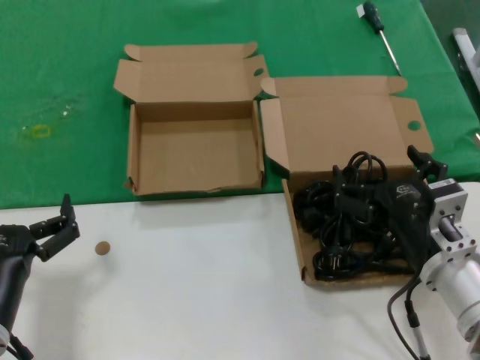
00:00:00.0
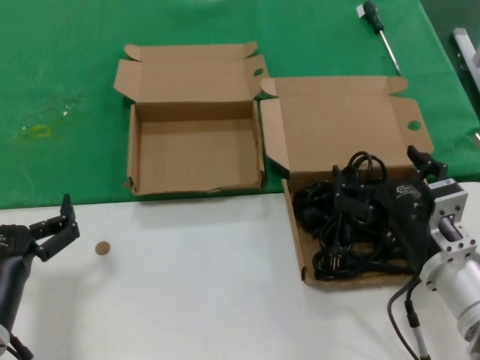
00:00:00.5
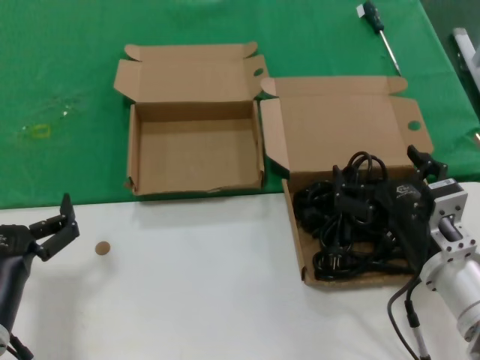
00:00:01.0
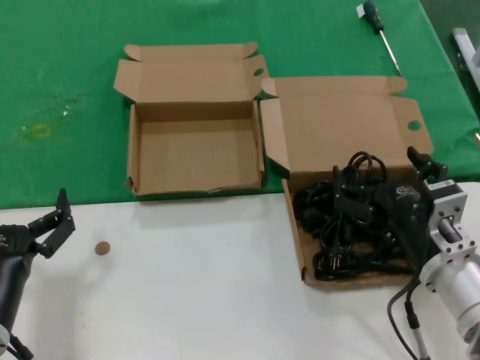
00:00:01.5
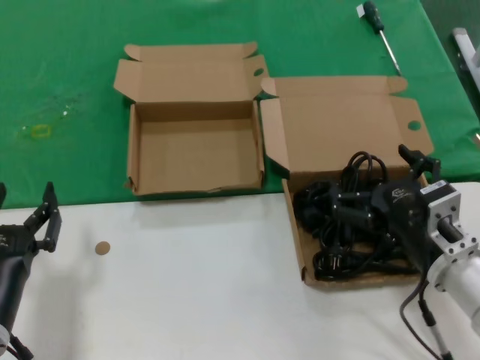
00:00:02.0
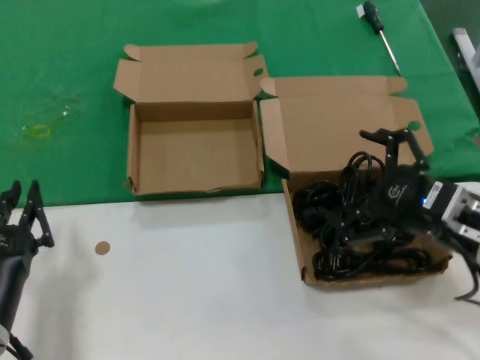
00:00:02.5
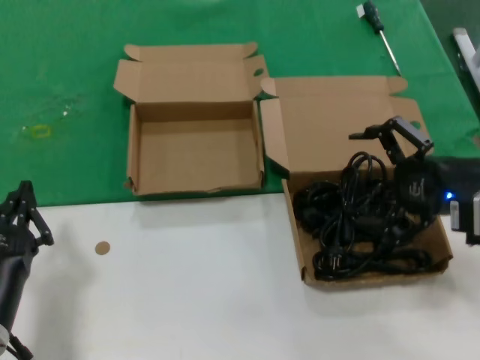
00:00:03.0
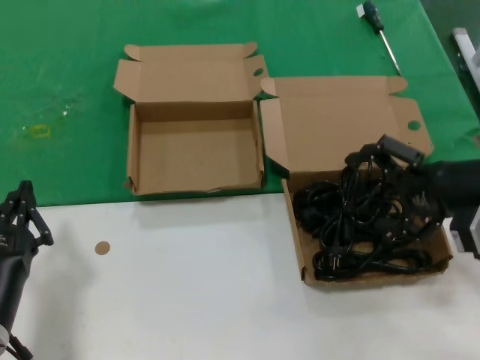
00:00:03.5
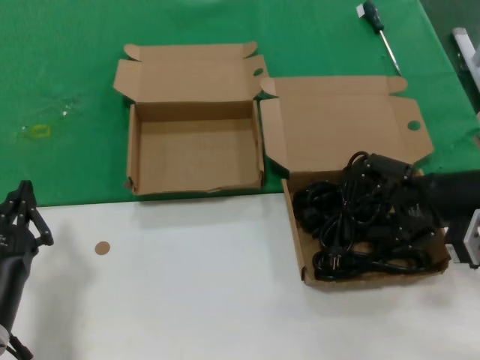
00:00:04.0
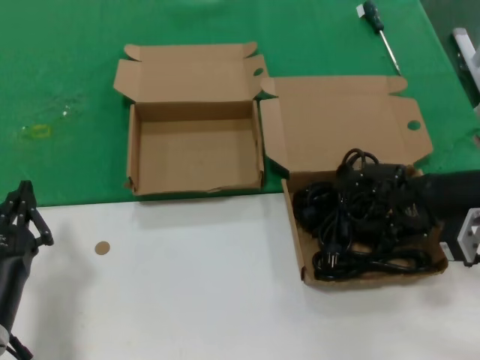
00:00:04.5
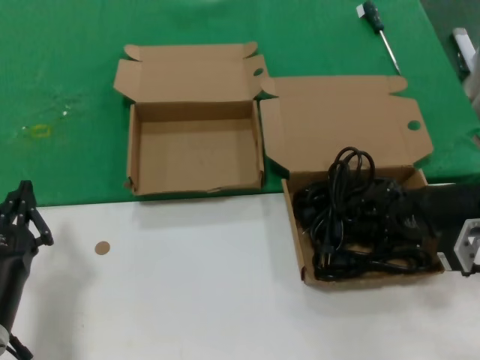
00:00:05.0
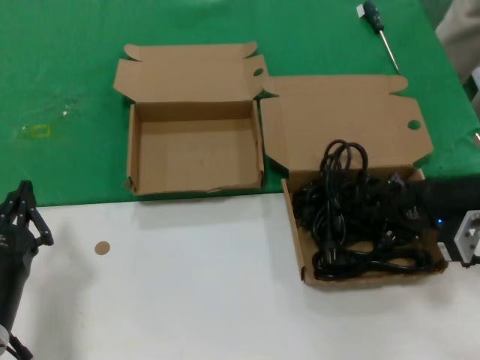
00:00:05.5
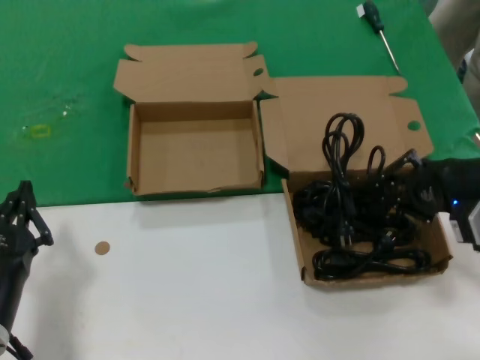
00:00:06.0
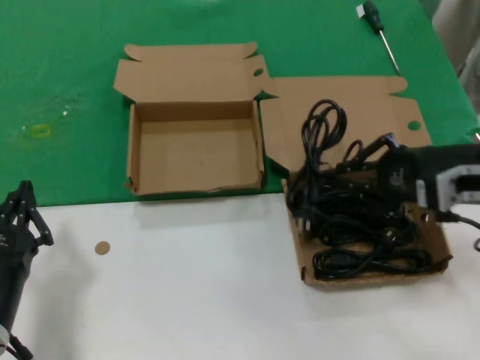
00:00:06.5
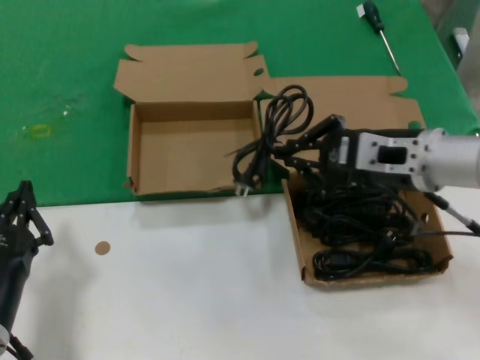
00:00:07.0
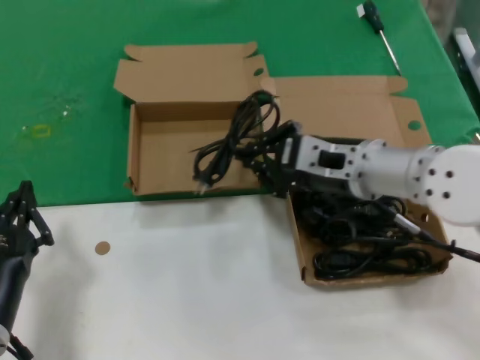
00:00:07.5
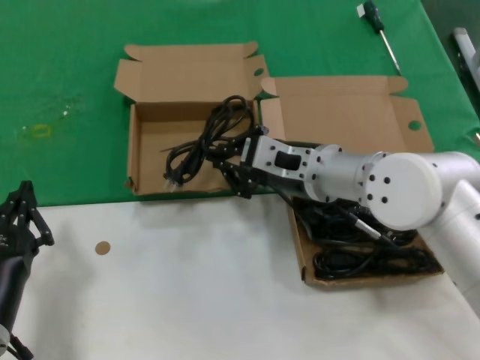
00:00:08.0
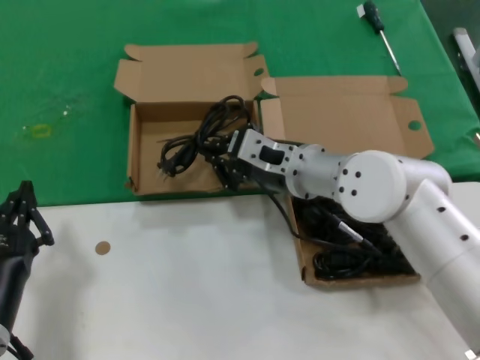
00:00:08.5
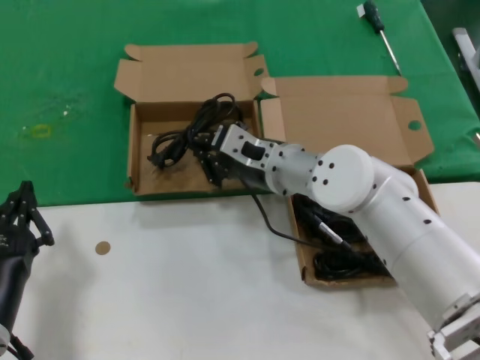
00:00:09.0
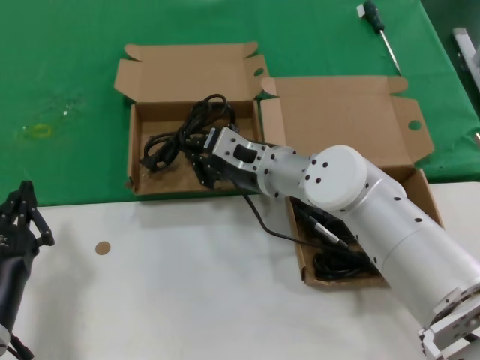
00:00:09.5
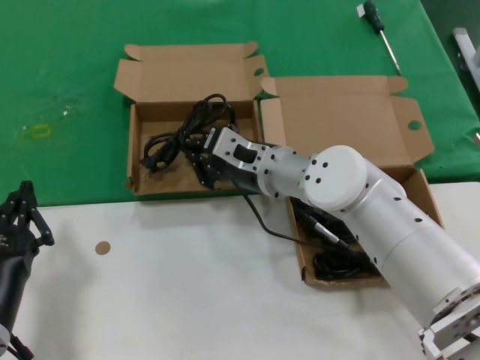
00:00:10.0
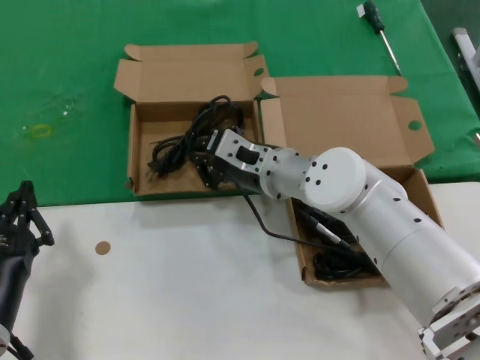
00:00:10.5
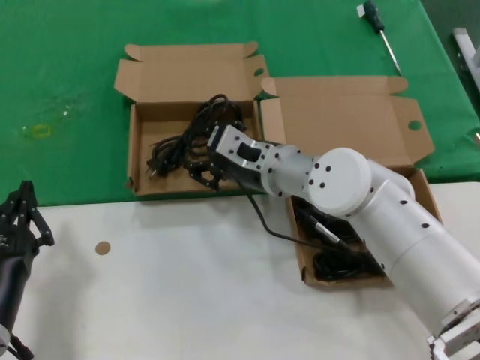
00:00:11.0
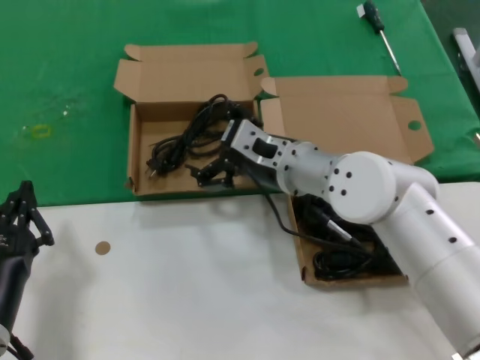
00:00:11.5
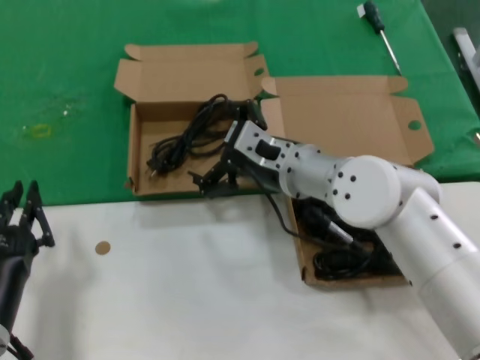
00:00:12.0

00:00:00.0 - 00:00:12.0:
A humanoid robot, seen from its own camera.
Task of the whole recording: take the parts from the box containing them and put them into an empty box.
Step, 00:00:00.0 - 00:00:04.5: Grasp the data cable.
Step, 00:00:05.0 - 00:00:11.0: Place the data cable in the another box.
00:00:00.0 - 00:00:02.0: The hands stay close to where they were, moving slightly.
00:00:02.0 - 00:00:04.0: The right hand shifts roughly 15 cm to the right, upward and forward.
00:00:04.0 - 00:00:06.0: The hands stay close to where they were, moving slightly.
00:00:06.0 - 00:00:08.0: The right hand travels to the left by approximately 25 cm.
00:00:08.0 - 00:00:10.0: The right hand shifts some 10 cm forward and to the left.
00:00:10.0 - 00:00:12.0: The hands move only a little.

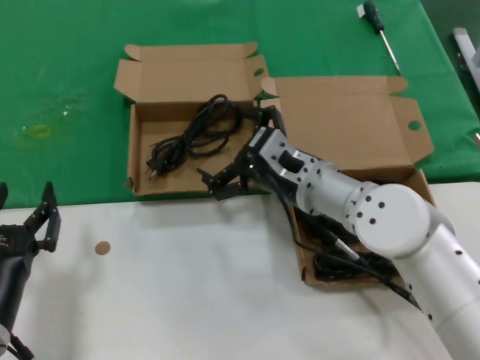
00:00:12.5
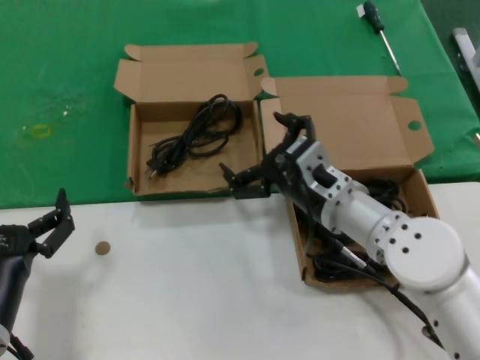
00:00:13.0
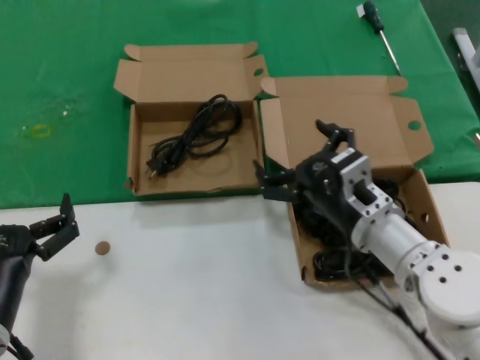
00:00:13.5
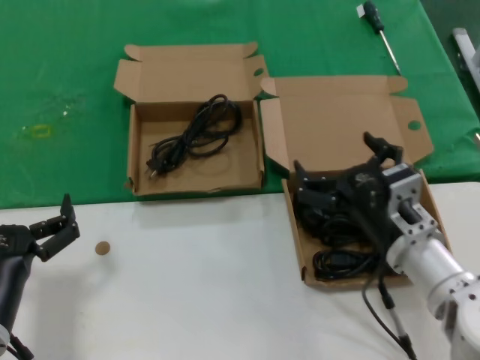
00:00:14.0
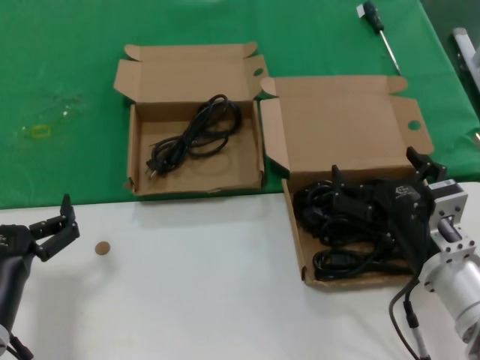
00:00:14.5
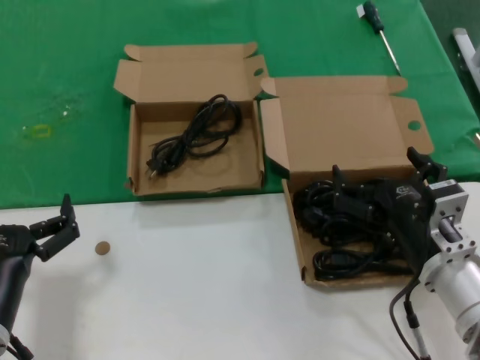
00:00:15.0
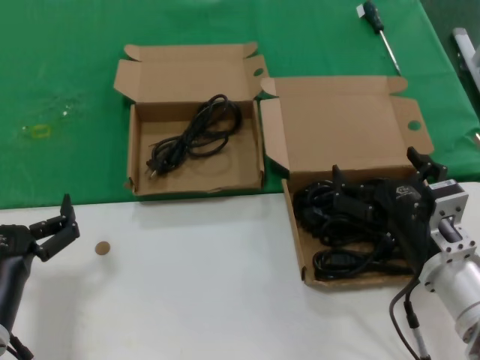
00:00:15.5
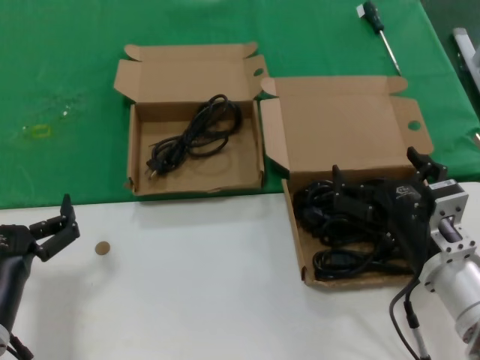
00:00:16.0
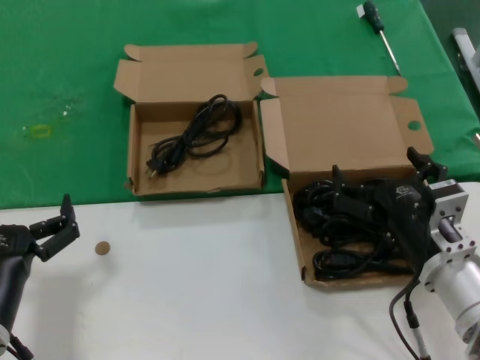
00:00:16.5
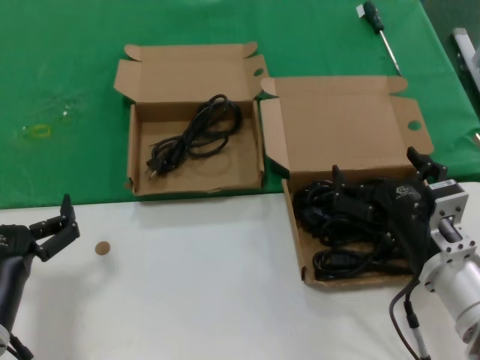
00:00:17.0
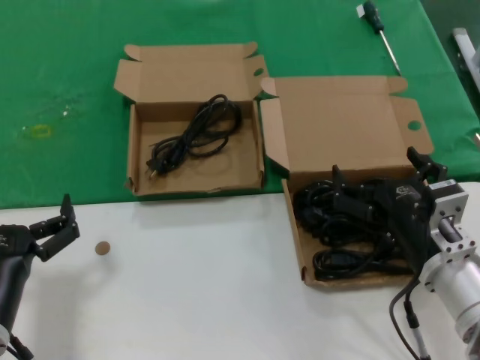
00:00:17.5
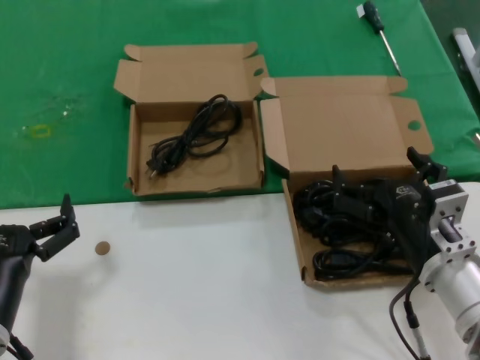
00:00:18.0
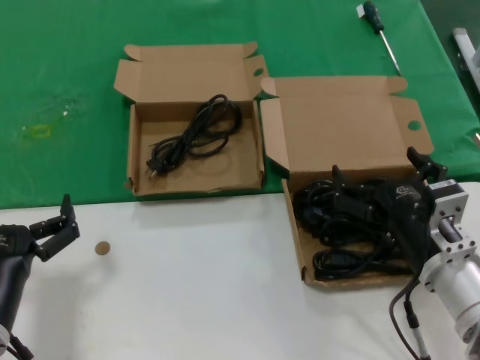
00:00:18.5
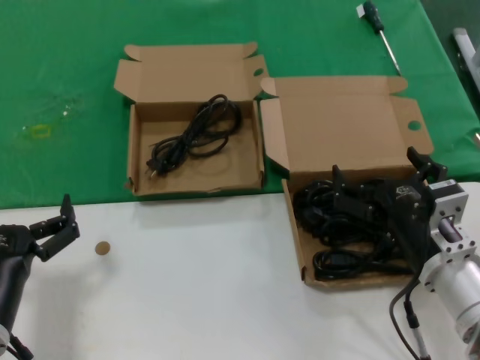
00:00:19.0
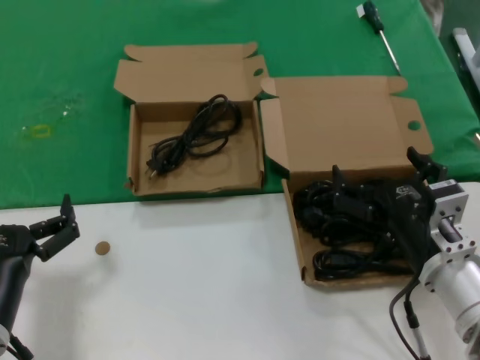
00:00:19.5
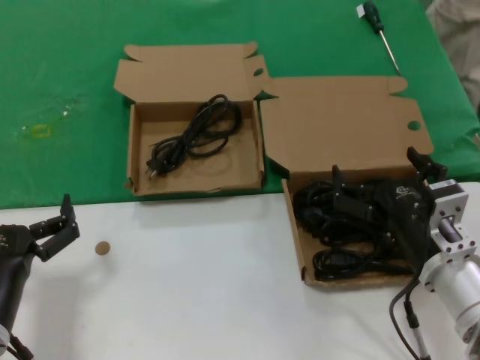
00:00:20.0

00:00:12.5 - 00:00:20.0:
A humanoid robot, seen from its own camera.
Task of the whole recording: take the parts from the box containing them and put them into an empty box.
00:00:12.5 - 00:00:14.5: The right hand travels backward, to the right and downward by about 20 cm.
00:00:14.5 - 00:00:20.0: Neither hand changes place.

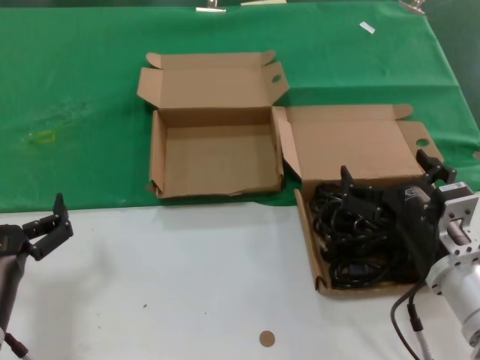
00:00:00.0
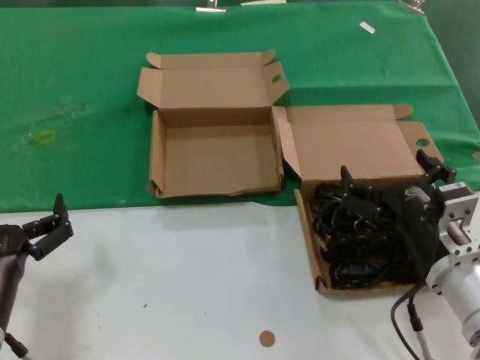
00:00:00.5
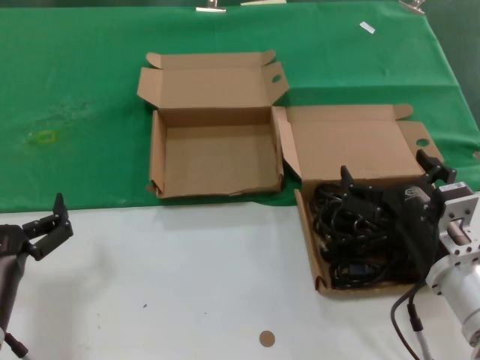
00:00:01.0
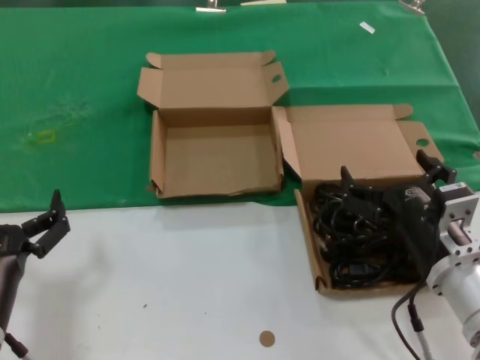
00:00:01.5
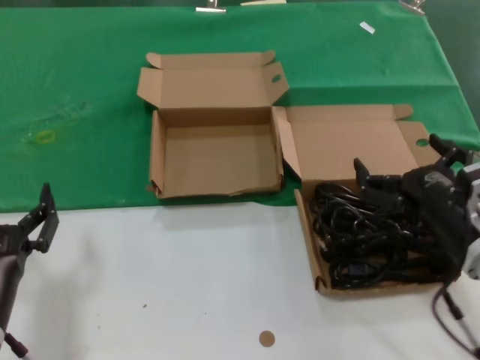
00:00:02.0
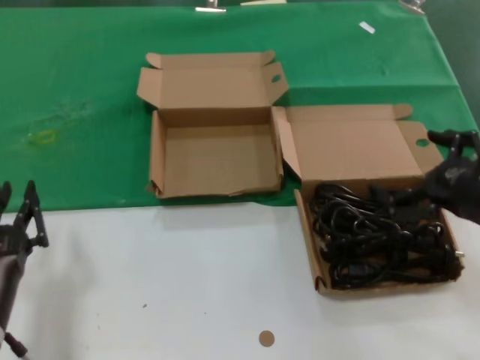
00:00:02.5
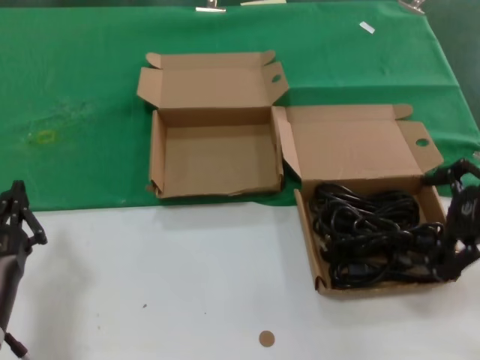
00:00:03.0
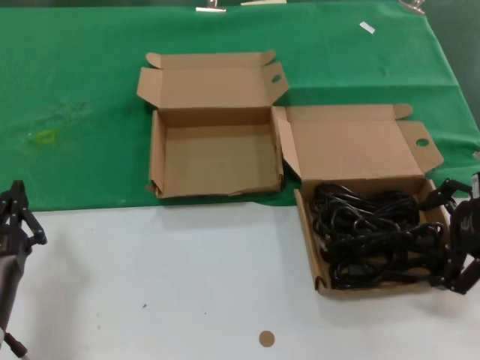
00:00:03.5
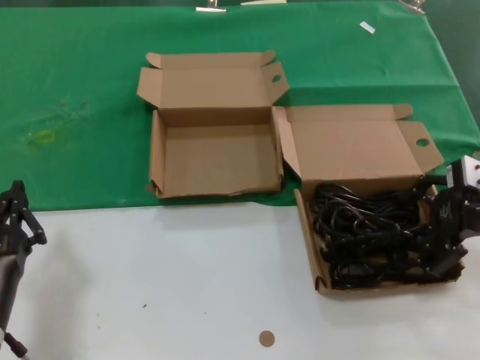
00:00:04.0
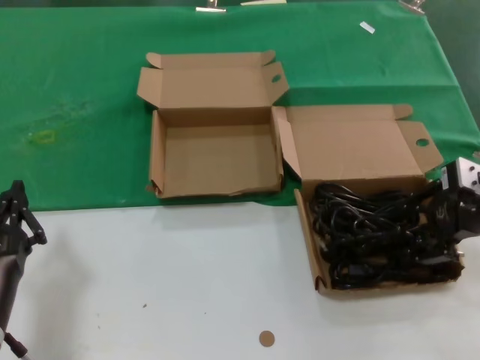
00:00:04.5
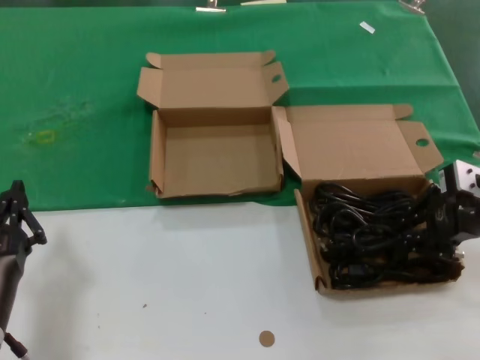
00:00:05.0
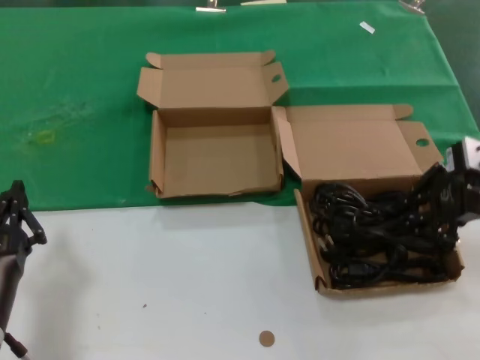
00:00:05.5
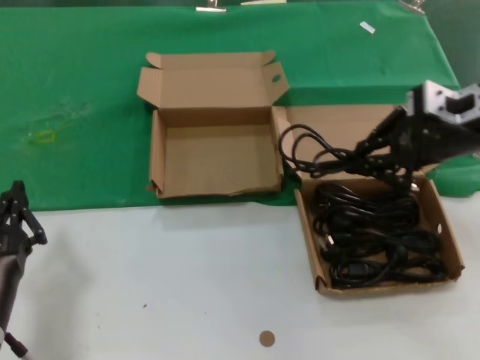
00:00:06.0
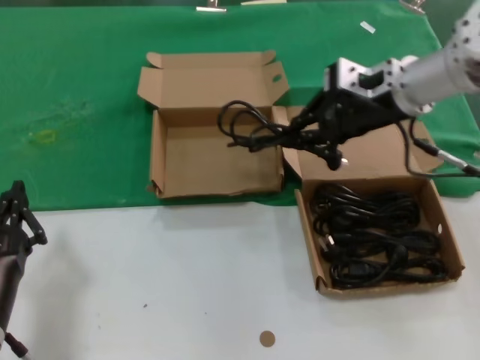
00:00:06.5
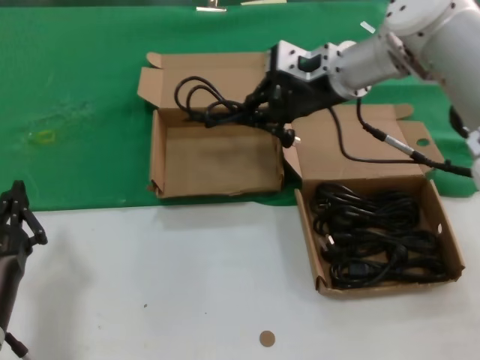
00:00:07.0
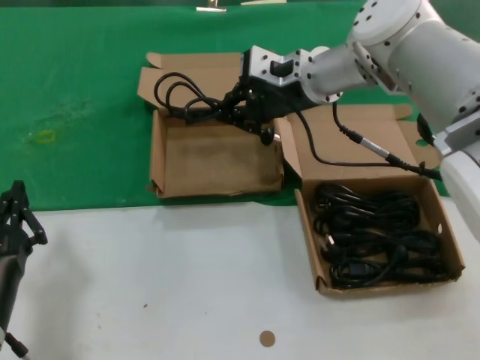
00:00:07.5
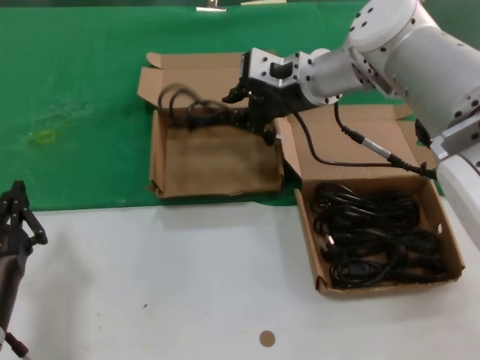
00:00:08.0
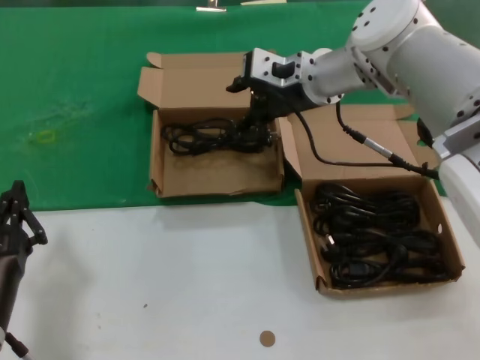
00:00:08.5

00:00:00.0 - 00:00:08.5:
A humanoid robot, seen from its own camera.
Task of the whole recording: take the parts from the box containing them and put them into an empty box.
Step, 00:00:00.0 - 00:00:05.0: Grasp the data cable.
Step, 00:00:05.5 - 00:00:08.0: Place the data cable in the another box.
00:00:00.0 - 00:00:02.0: The hands stay close to where they were, moving slightly.
00:00:02.0 - 00:00:04.0: The right hand is displaced upward, to the right and forward by some 20 cm.
00:00:04.0 - 00:00:06.5: The right hand goes some 20 cm to the left, forward and upward.
00:00:06.5 - 00:00:08.5: The right hand heads to the left and forward, covering some 10 cm.
